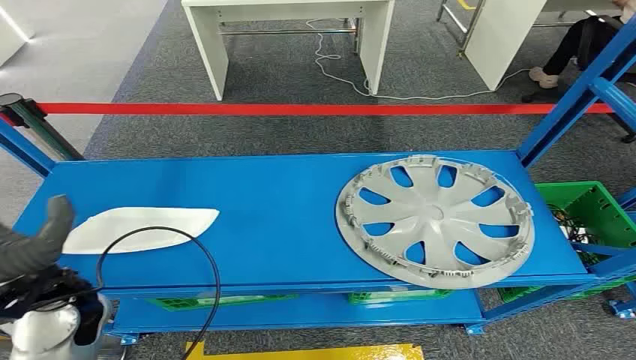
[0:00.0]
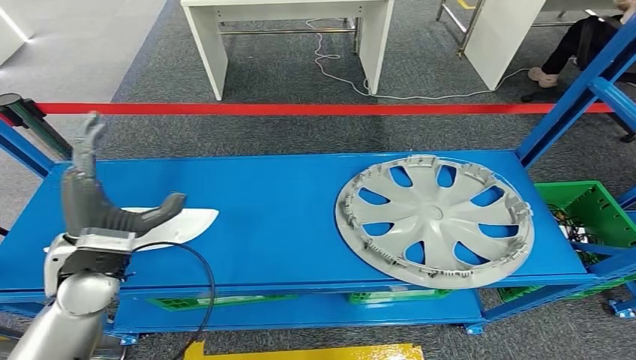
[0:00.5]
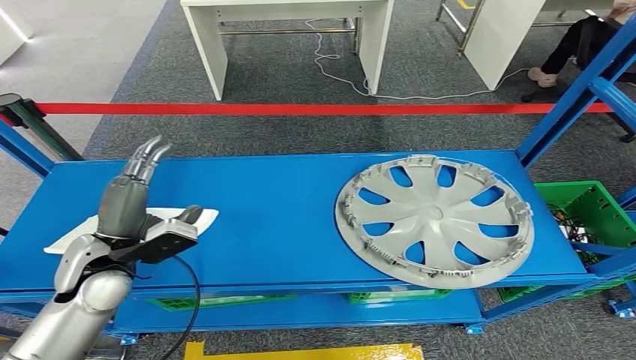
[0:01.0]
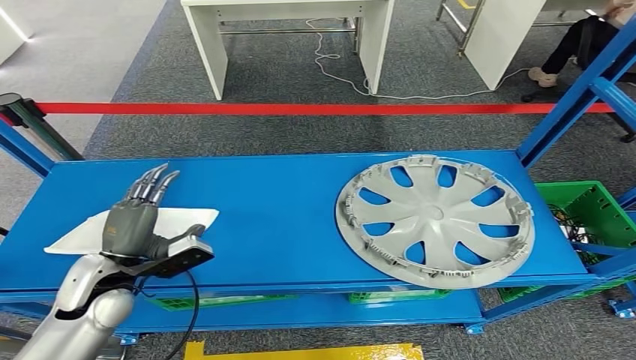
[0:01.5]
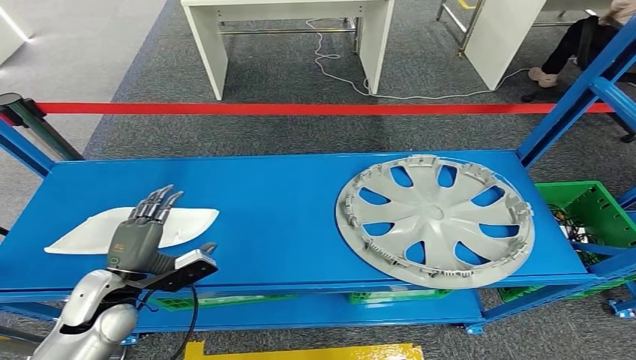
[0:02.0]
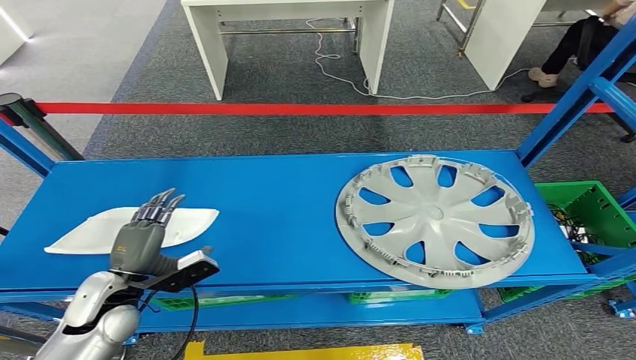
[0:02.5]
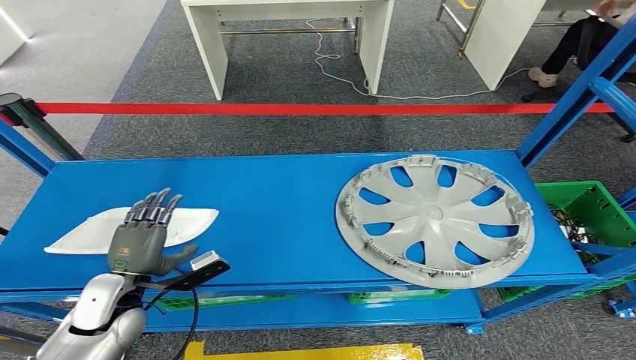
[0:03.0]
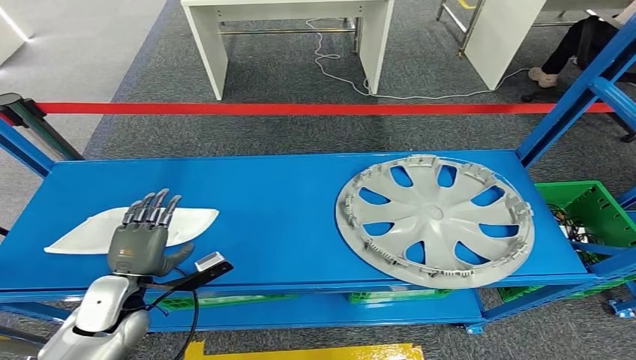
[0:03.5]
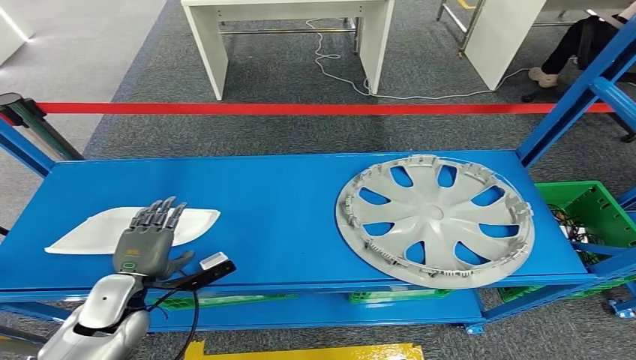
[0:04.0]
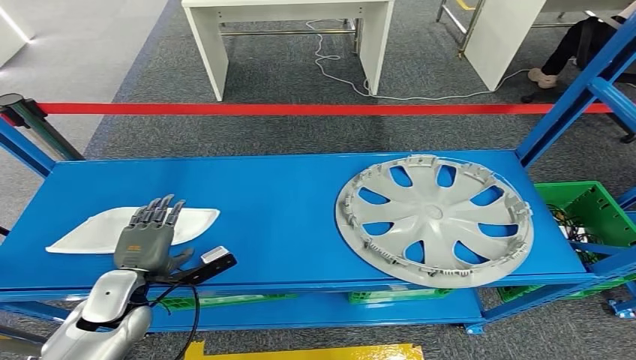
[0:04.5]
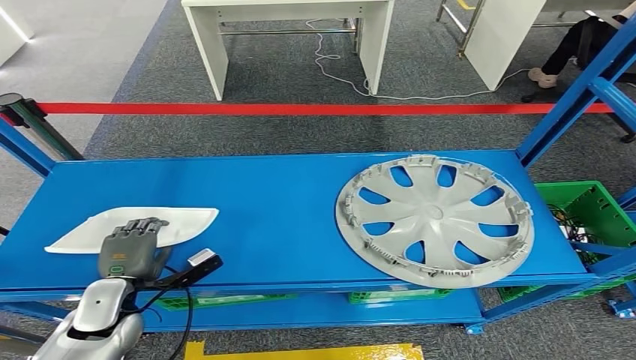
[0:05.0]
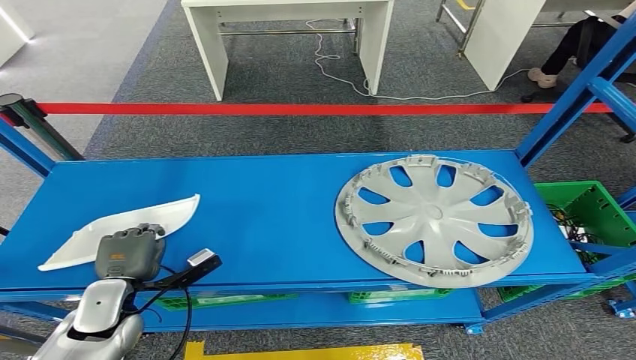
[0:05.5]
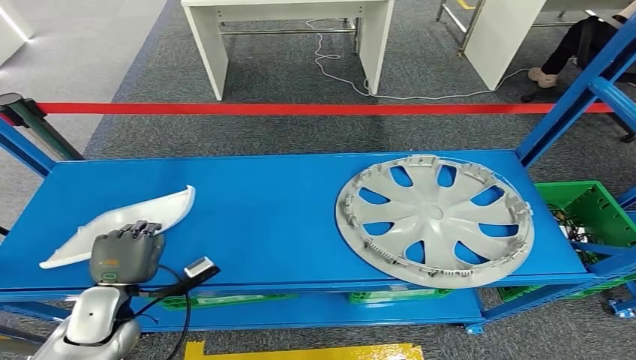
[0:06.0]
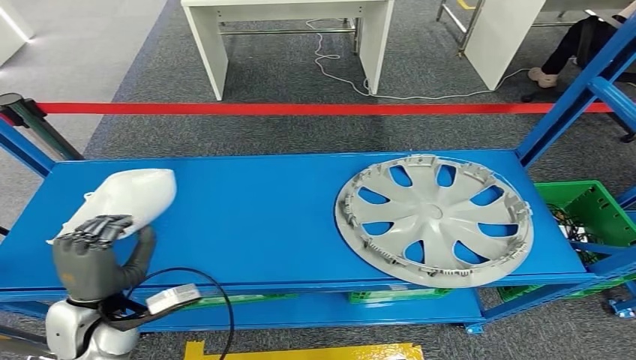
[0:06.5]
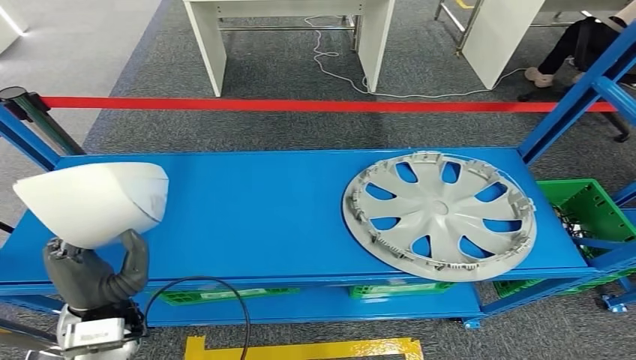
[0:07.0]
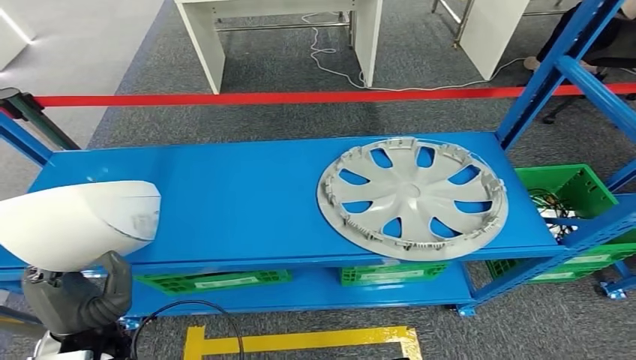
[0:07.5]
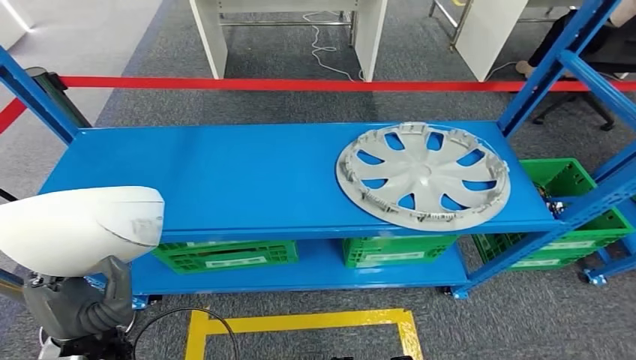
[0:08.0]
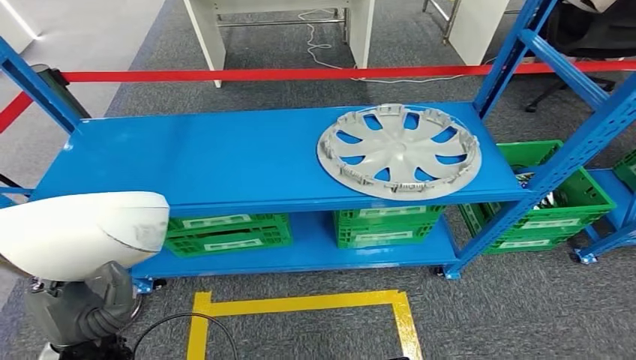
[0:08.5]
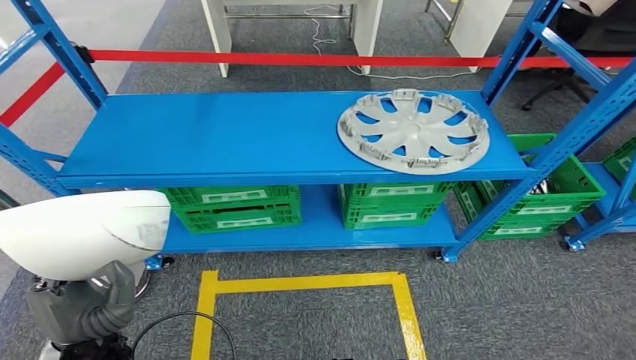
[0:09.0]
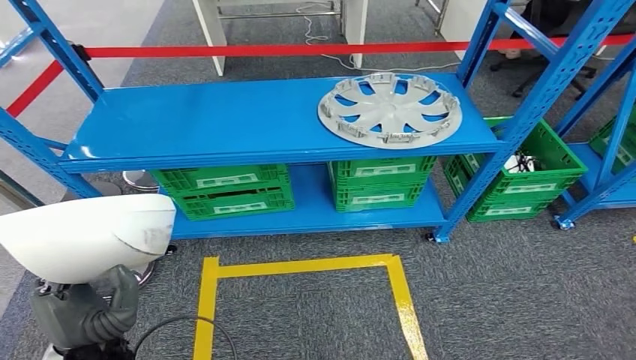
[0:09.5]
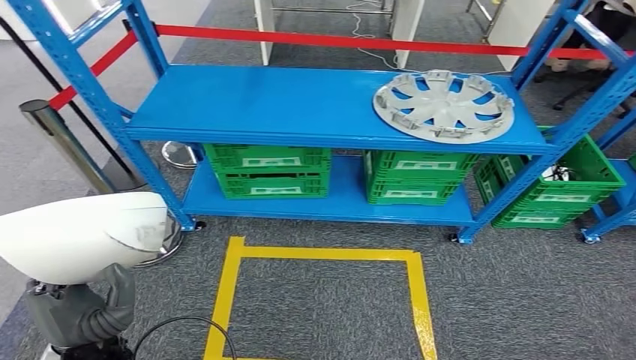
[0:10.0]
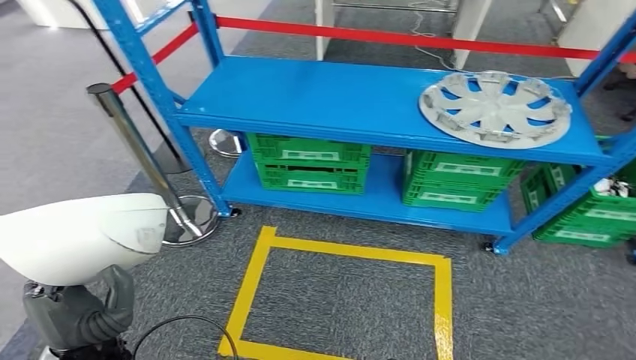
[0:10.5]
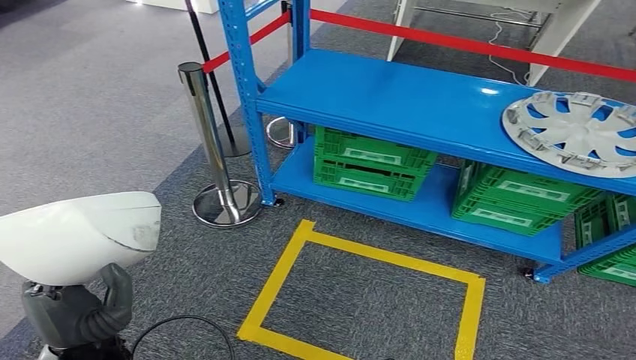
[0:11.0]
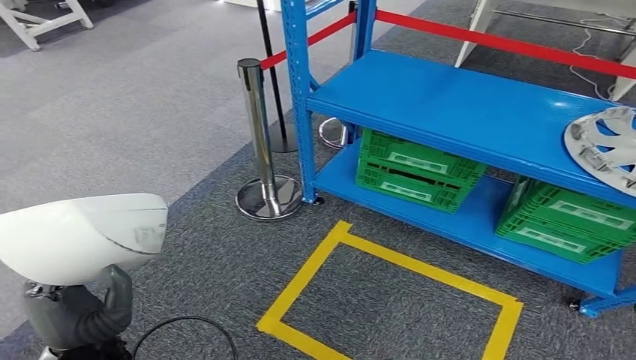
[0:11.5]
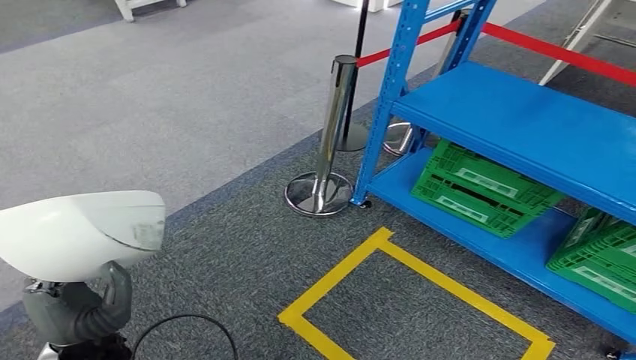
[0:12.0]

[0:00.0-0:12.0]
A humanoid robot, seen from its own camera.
Step, 0:00.0 to 0:09.5: Take small components from the rack.
0:04.0 to 0:06.0: The hands make only small movements.

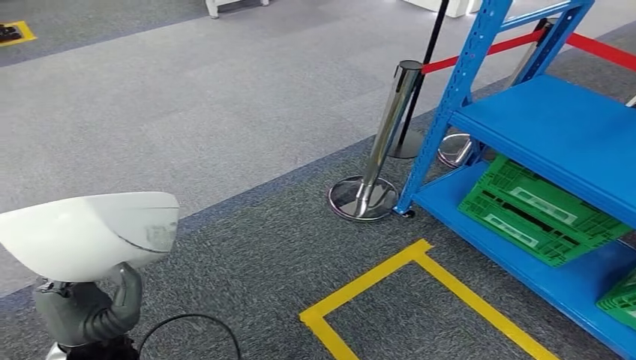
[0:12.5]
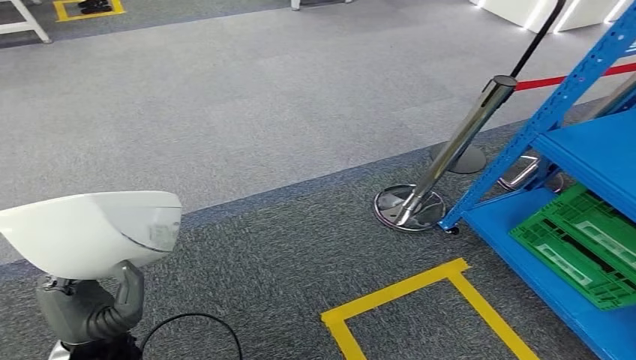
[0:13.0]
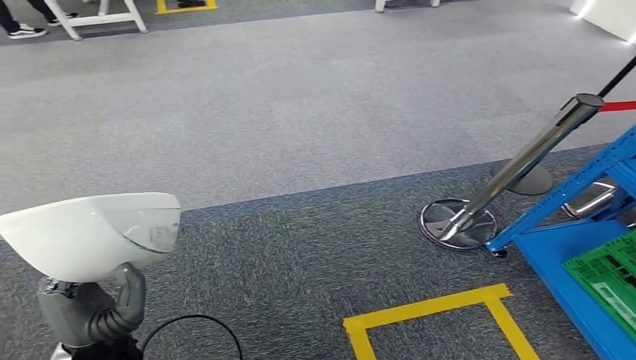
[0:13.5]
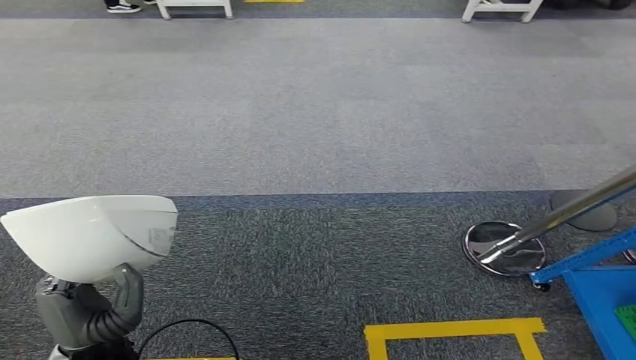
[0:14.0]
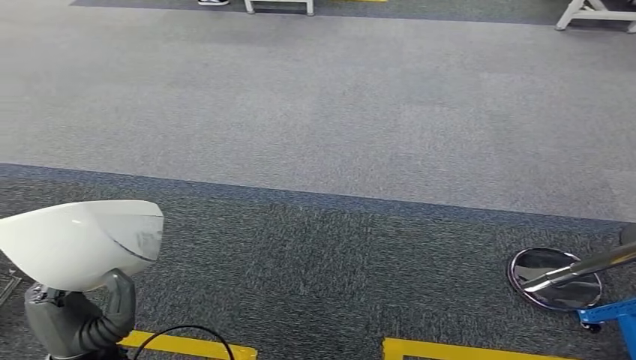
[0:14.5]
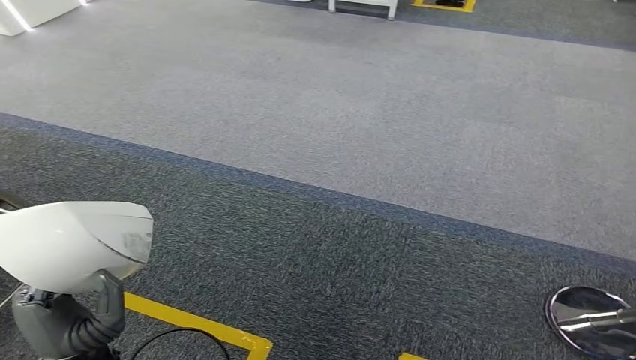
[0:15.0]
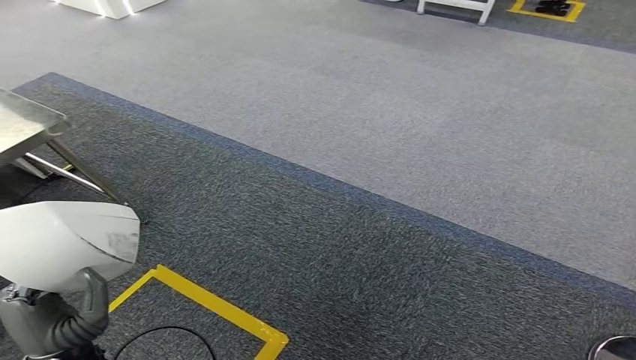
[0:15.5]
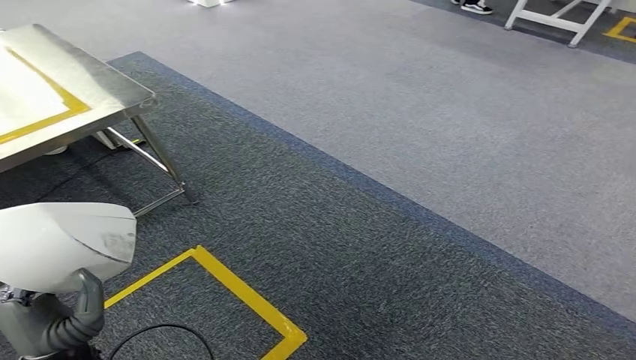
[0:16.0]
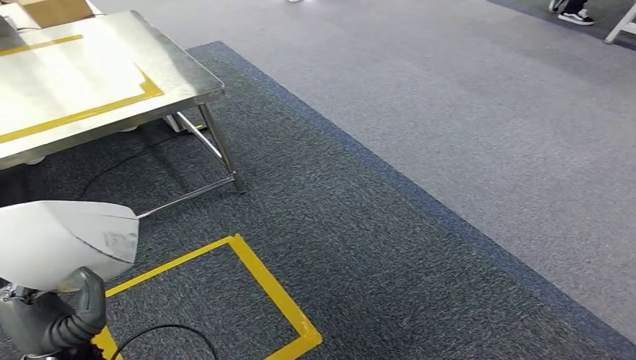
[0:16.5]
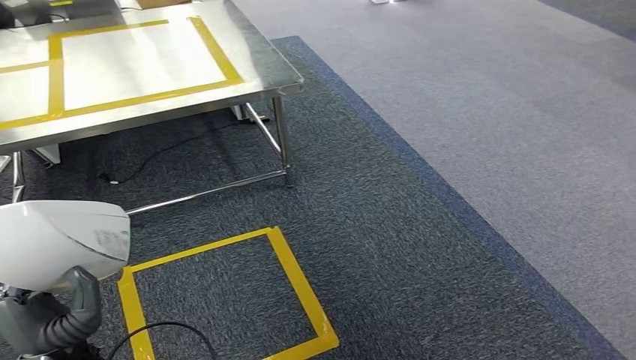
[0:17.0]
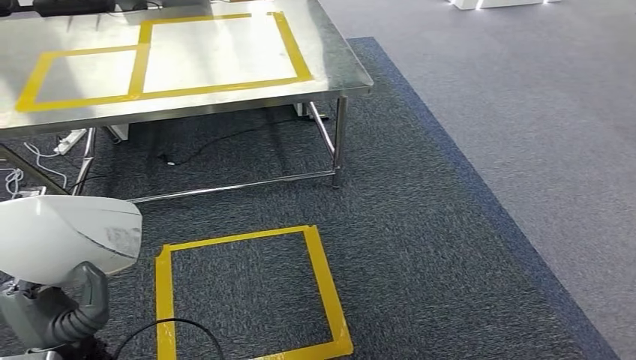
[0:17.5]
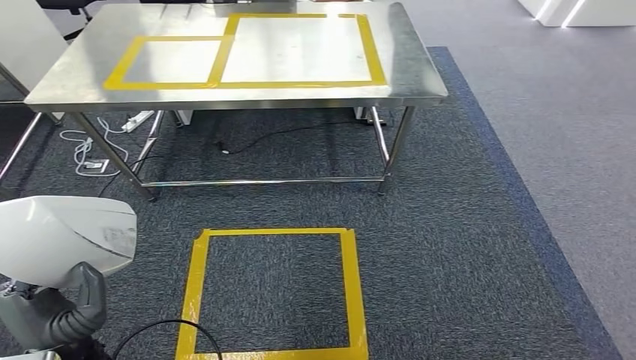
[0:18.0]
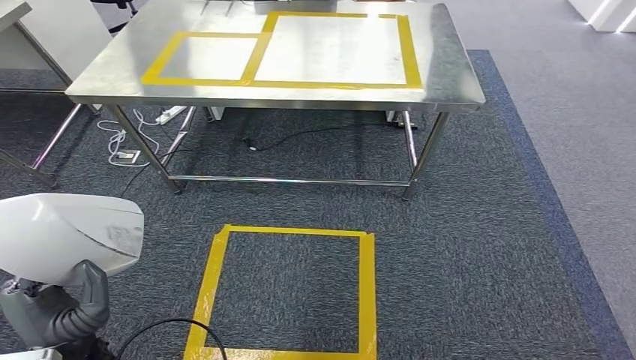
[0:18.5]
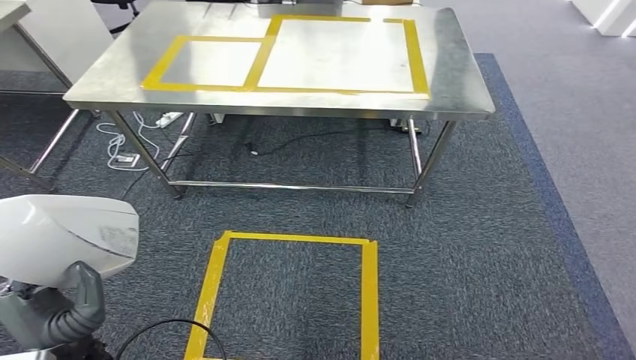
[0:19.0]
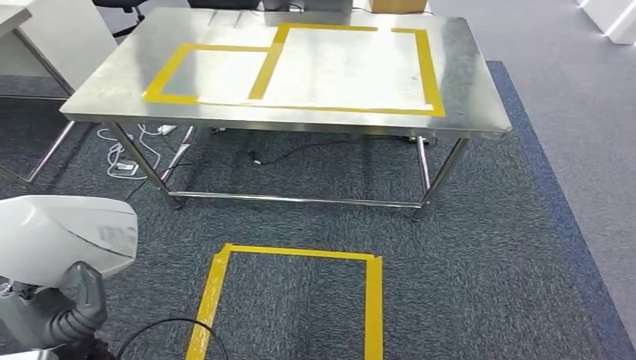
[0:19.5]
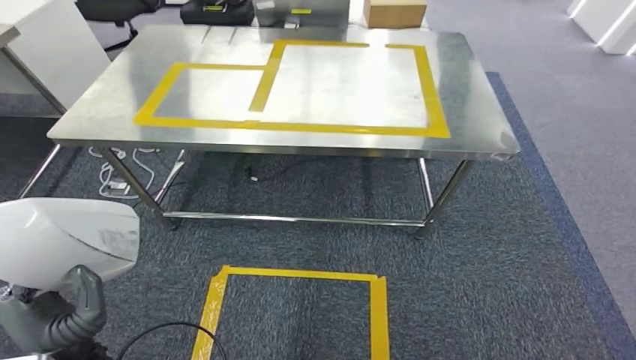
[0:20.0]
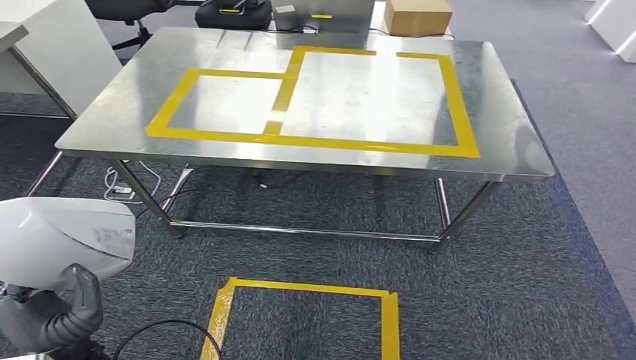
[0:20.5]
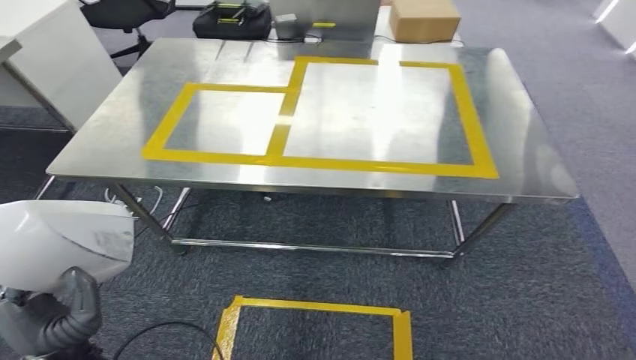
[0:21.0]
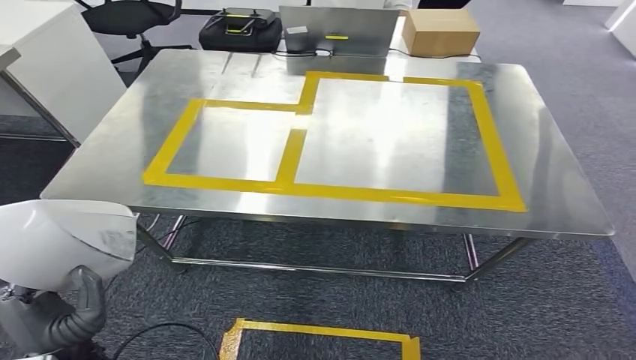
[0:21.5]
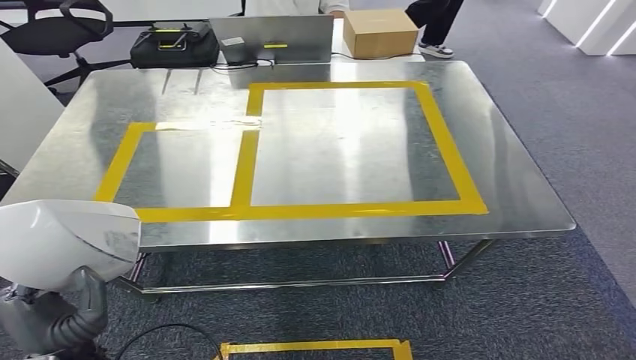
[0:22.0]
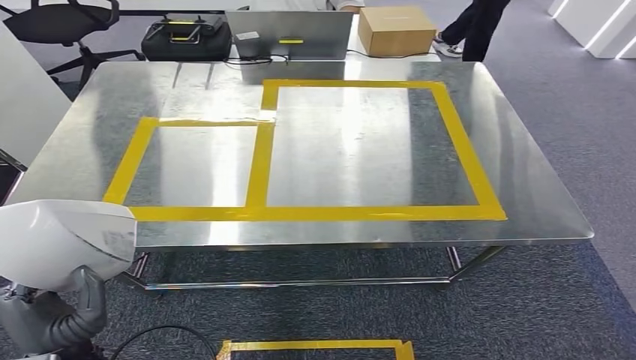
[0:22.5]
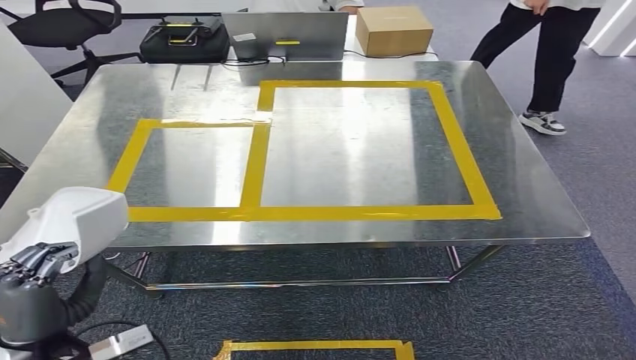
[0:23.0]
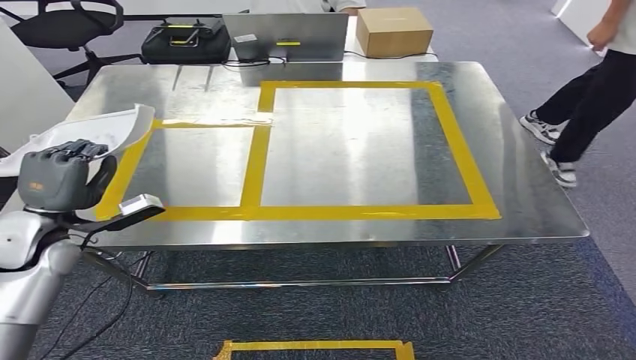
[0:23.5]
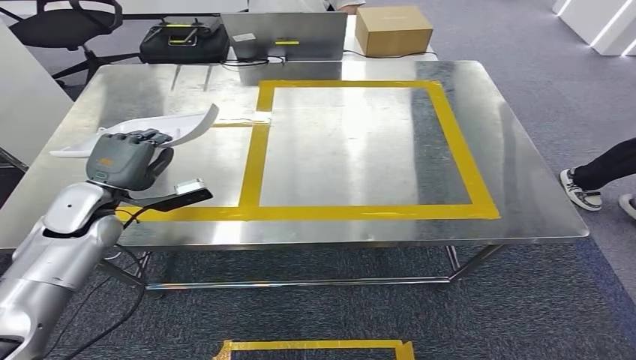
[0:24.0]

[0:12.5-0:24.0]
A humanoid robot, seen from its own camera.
Step, 0:12.5 to 0:21.5: Move the small parts to the workbench.
